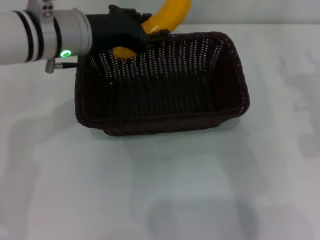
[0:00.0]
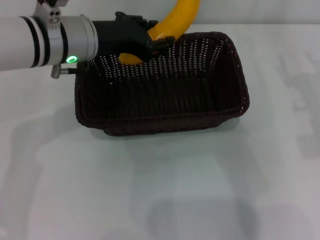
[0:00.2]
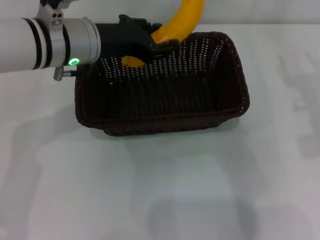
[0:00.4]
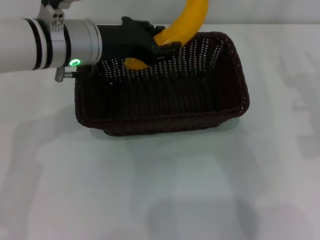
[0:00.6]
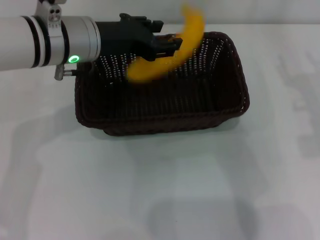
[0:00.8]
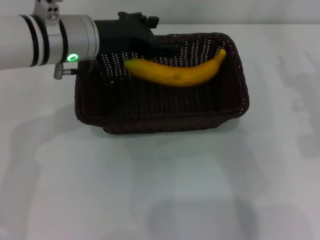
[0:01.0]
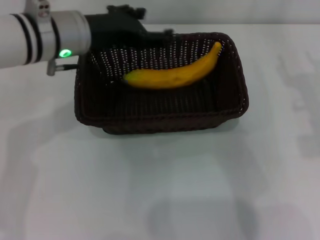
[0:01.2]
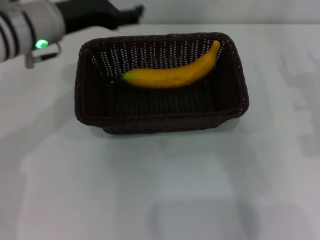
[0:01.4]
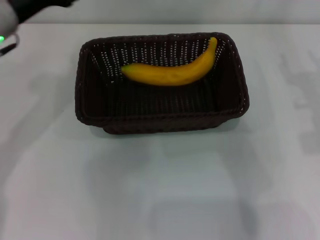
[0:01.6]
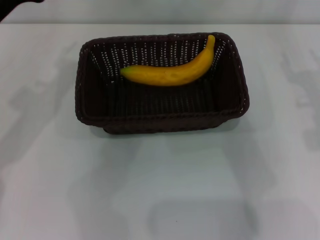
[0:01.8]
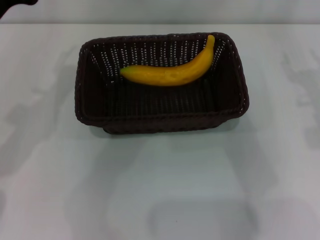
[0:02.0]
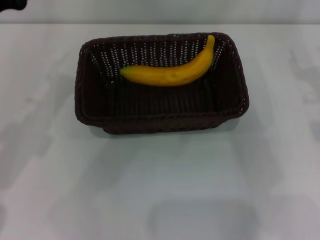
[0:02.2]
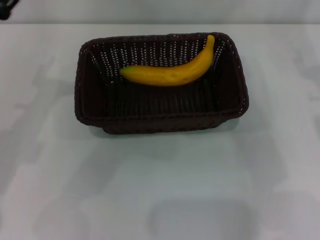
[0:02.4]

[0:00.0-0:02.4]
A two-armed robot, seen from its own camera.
0:00.0 to 0:01.2: The left gripper opens its fingers.
0:01.2 to 0:02.4: The left gripper goes approximately 15 cm to the left and backward.
